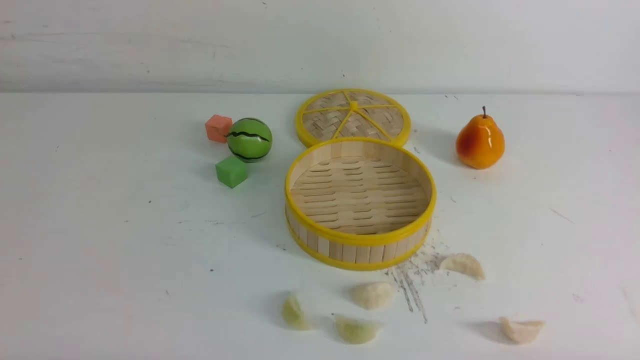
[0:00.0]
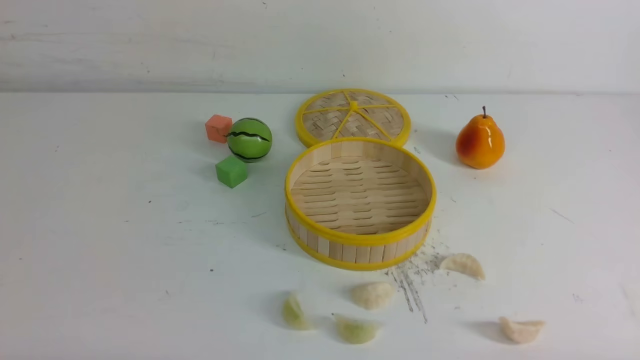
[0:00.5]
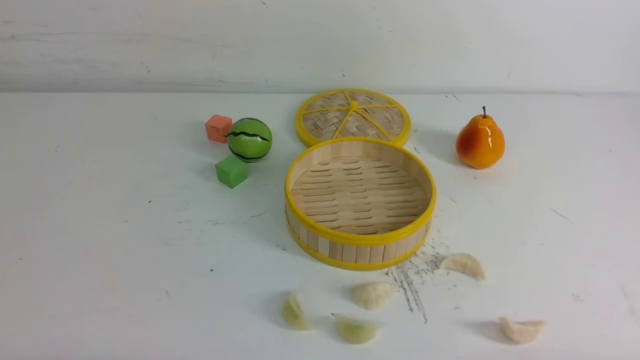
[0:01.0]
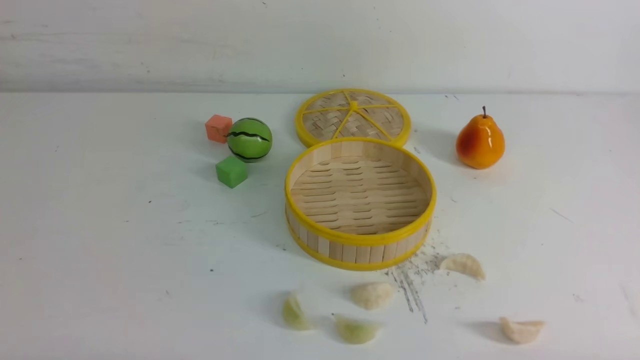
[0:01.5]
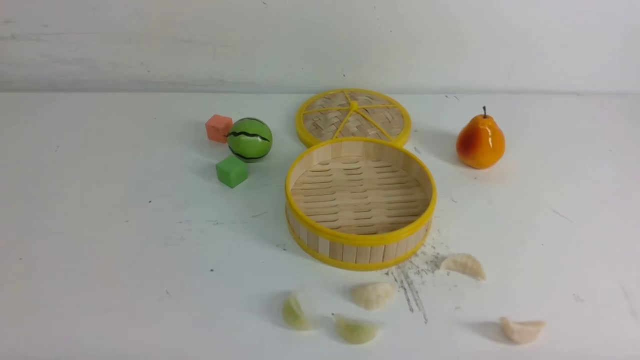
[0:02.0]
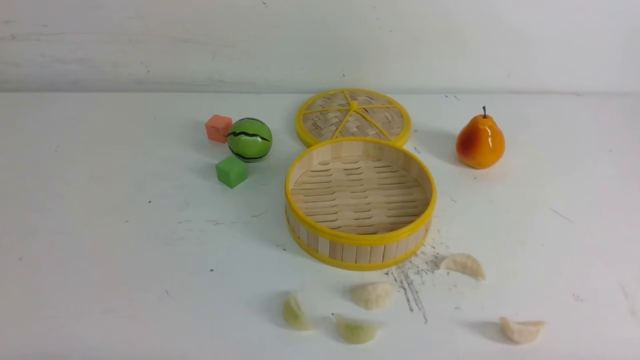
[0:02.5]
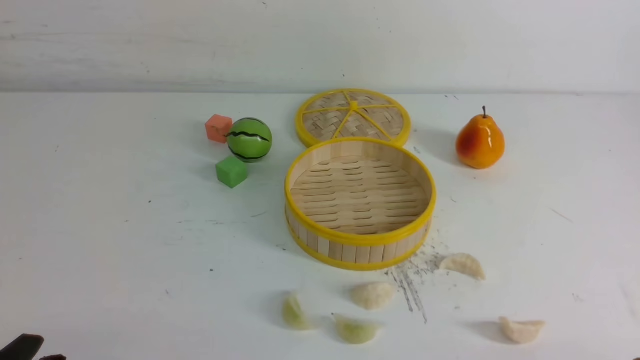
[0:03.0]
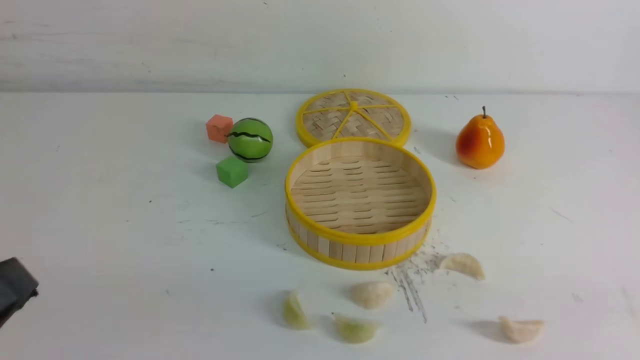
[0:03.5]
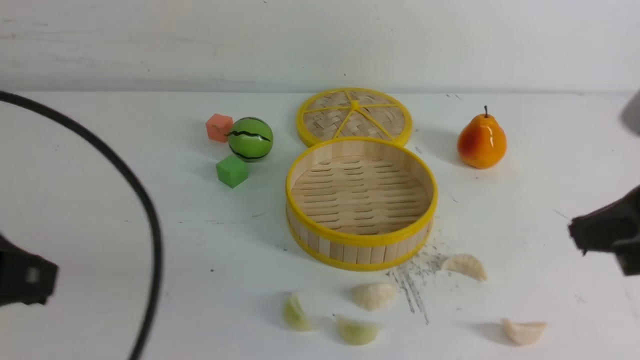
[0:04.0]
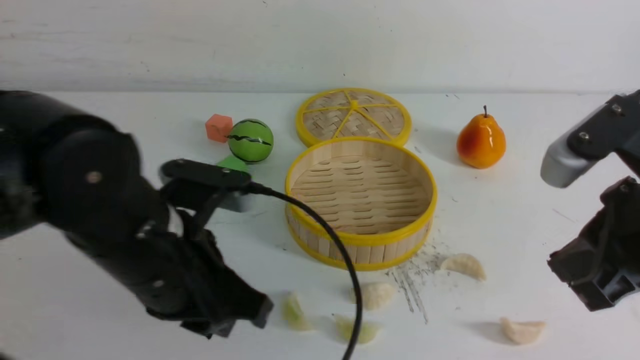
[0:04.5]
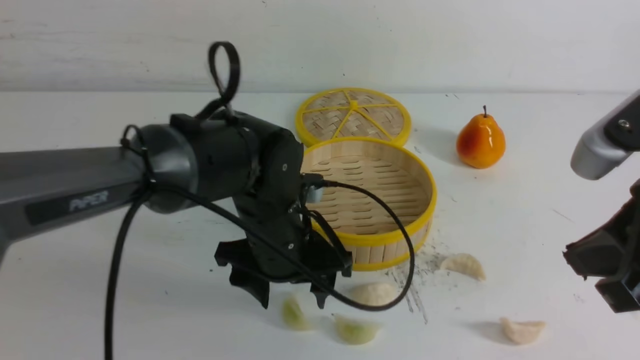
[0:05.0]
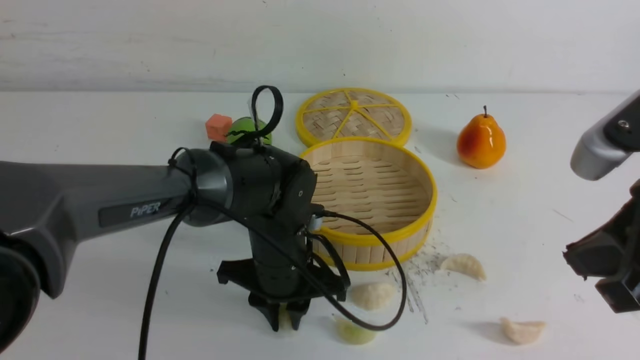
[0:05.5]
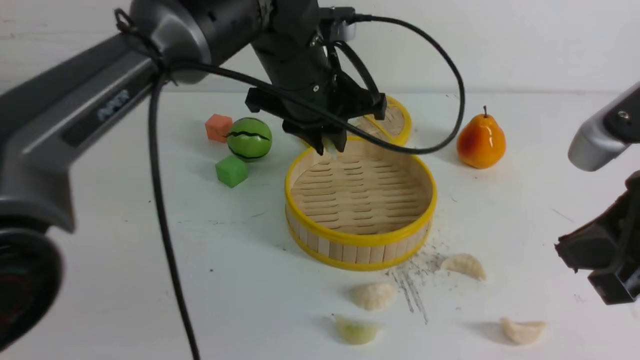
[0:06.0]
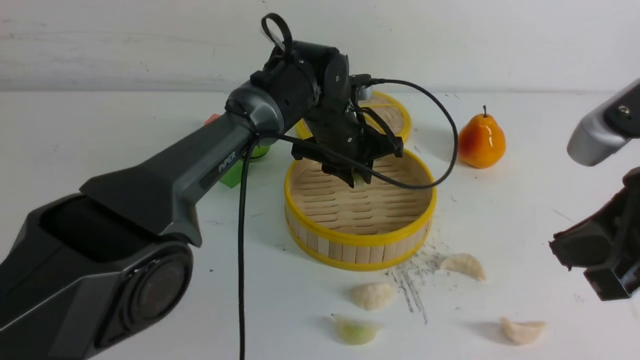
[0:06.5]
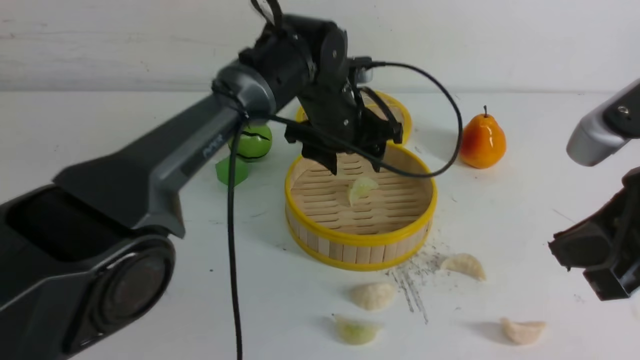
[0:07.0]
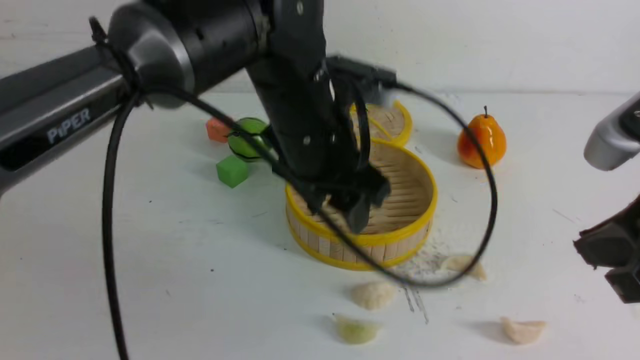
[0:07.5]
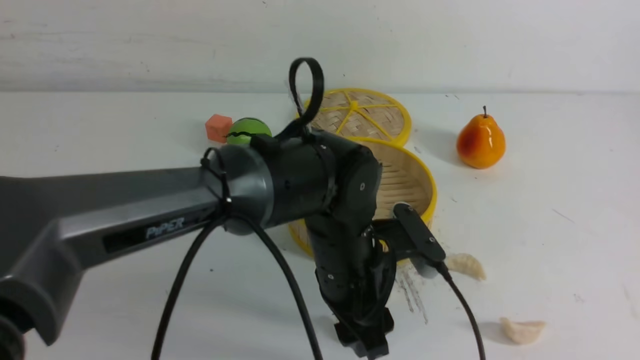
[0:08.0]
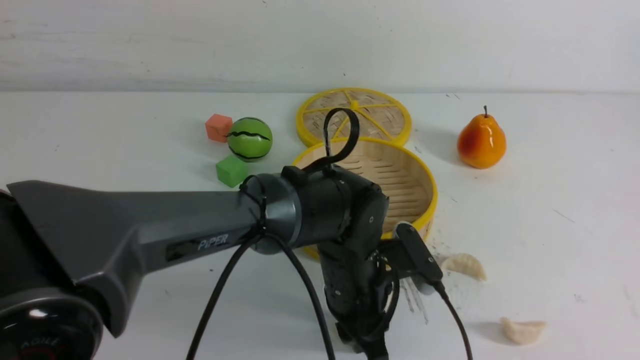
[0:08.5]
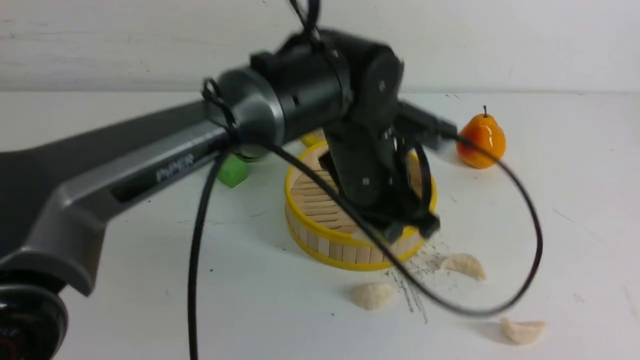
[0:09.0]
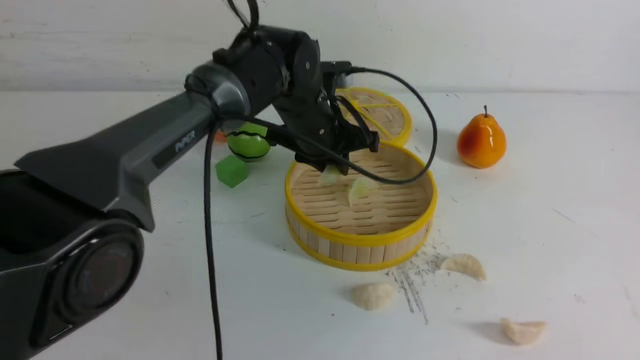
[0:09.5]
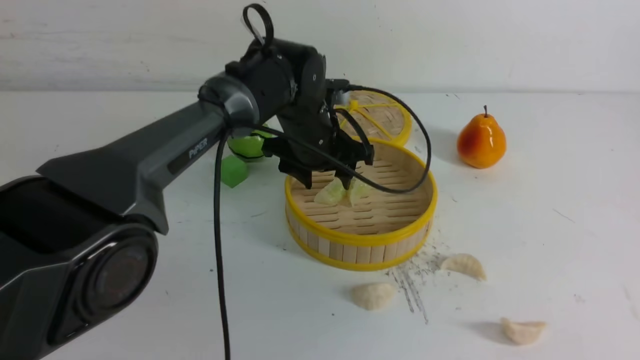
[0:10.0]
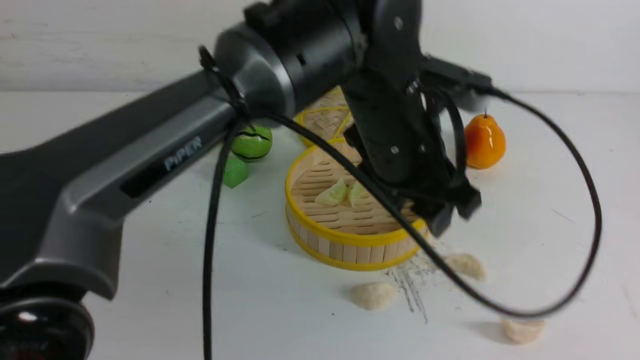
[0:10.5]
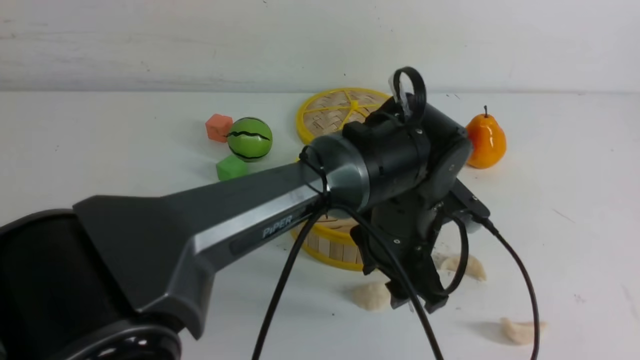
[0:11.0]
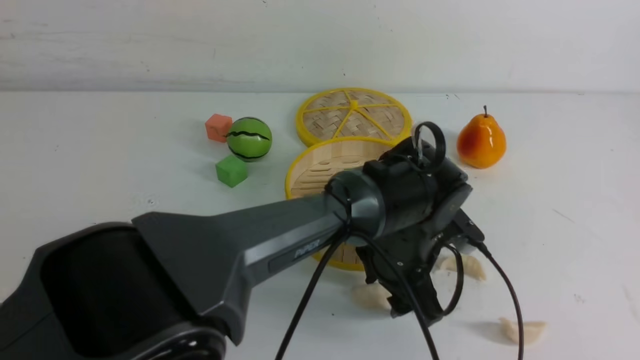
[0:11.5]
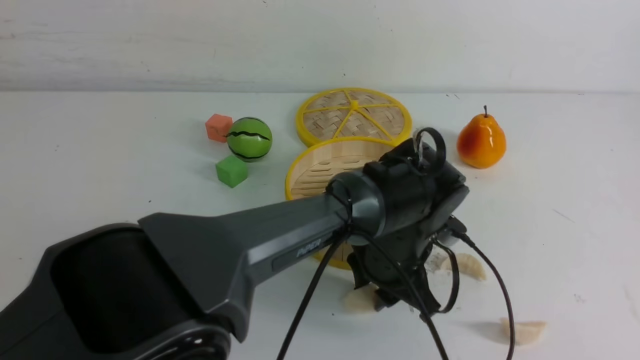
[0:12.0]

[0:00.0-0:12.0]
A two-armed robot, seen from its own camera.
Task of the whole recording: put the dumplings into the steamer on the white table.
Step, 0:00.0 to 0:05.5: use the left arm to grab a dumpling.
Step, 0:06.0 to 0:07.0: use the left arm to put the dumpling into the steamer.
Step, 0:07.5 to 0:08.5: use the left arm to grab a dumpling.
Step, 0:09.0 to 0:10.0: use the left arm to put the dumpling into the steamer.
0:00.0 to 0:02.0: The two grippers keep their place.
0:02.0 to 0:04.0: The grippers both shift upward and forward by some 20 cm. The left gripper closes, while the right gripper closes.
0:04.0 to 0:06.0: The left gripper is displaced forward and to the right by about 35 cm, and opens.
0:06.0 to 0:08.0: The right gripper is displaced to the right by approximately 5 cm; the left gripper heads backward and downward, covering some 15 cm, and opens its fingers.
0:08.0 to 0:10.0: The left gripper travels forward by about 15 cm, and closes, then opens again.
0:10.0 to 0:12.0: The left gripper moves backward, to the right and downward, approximately 15 cm.

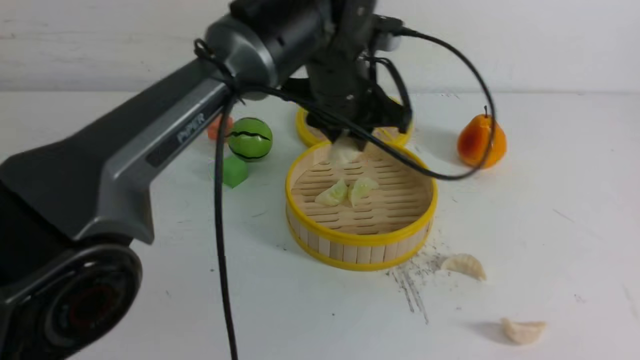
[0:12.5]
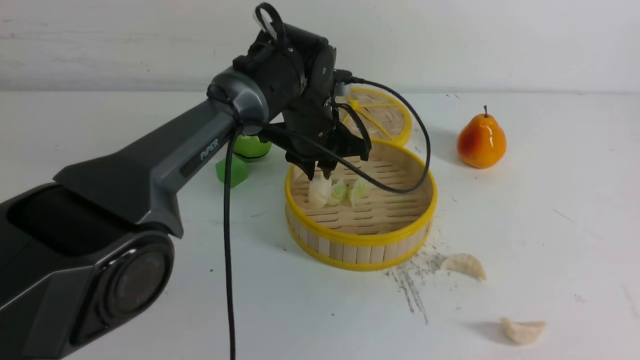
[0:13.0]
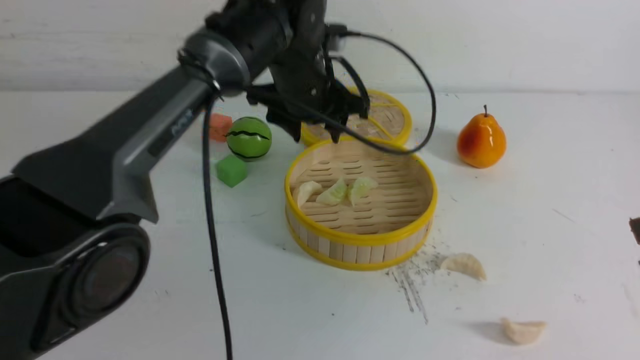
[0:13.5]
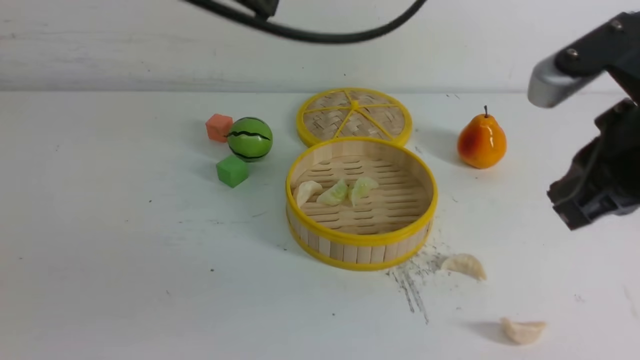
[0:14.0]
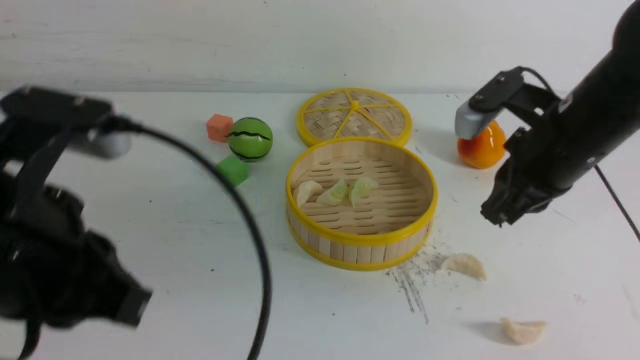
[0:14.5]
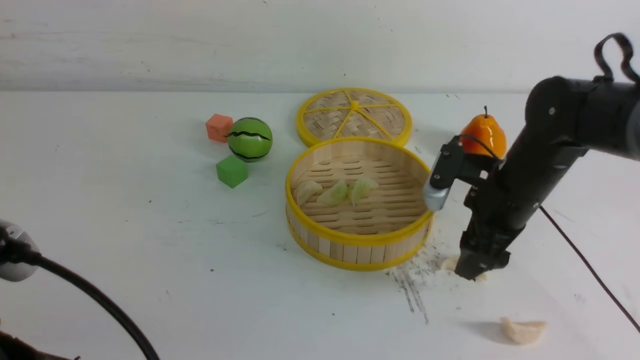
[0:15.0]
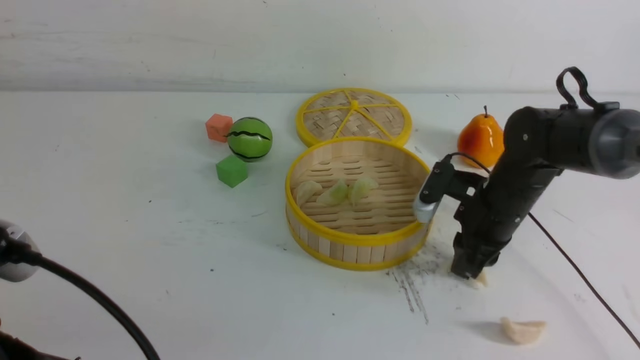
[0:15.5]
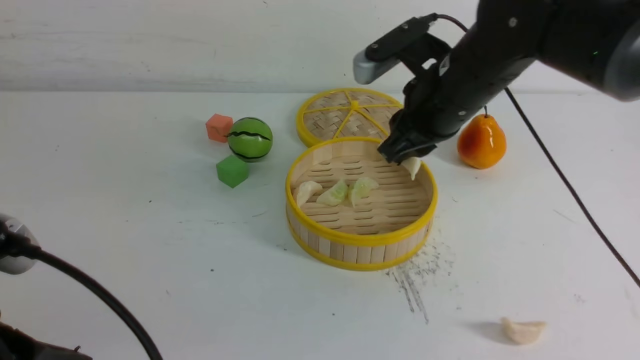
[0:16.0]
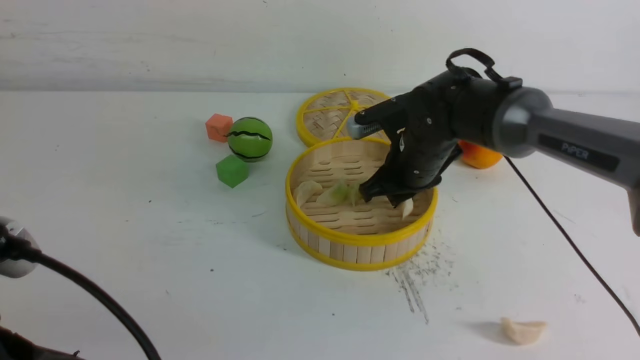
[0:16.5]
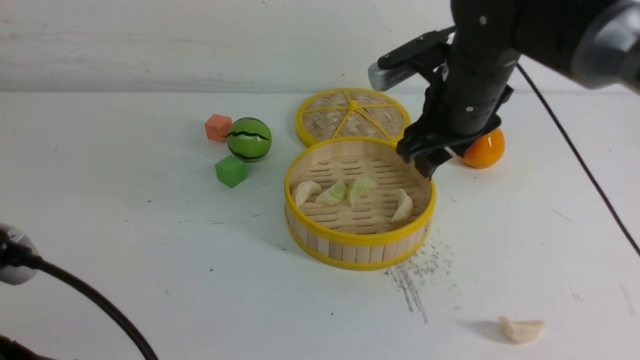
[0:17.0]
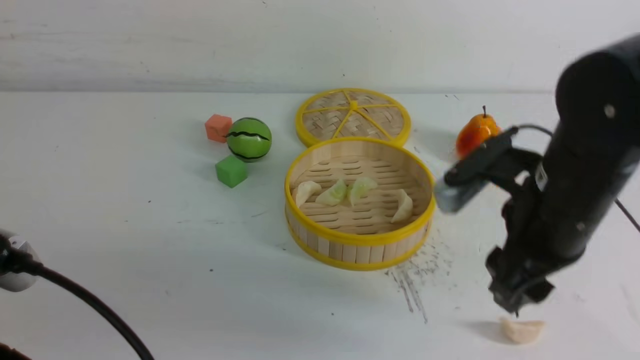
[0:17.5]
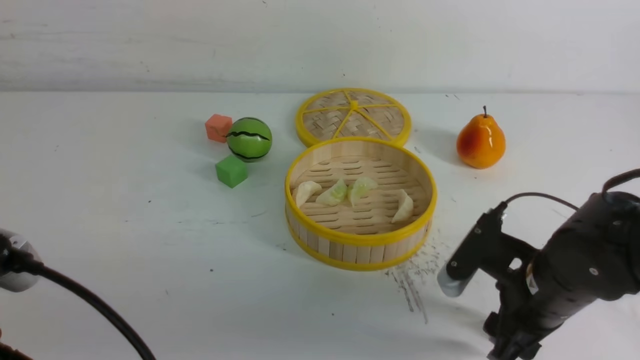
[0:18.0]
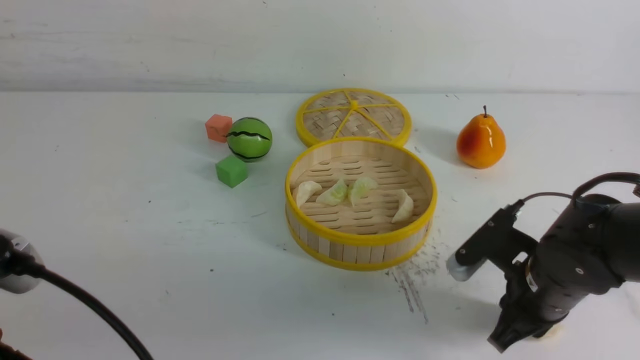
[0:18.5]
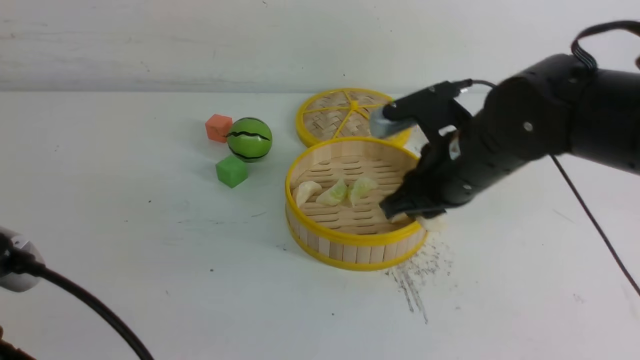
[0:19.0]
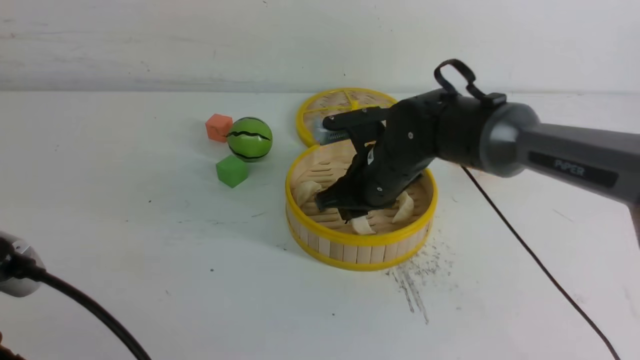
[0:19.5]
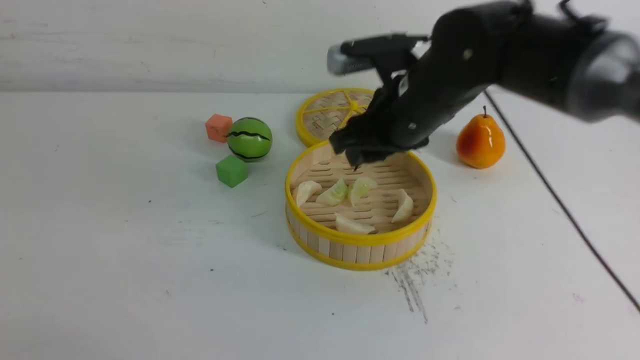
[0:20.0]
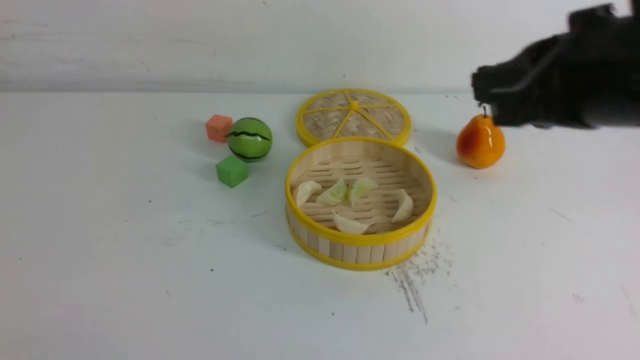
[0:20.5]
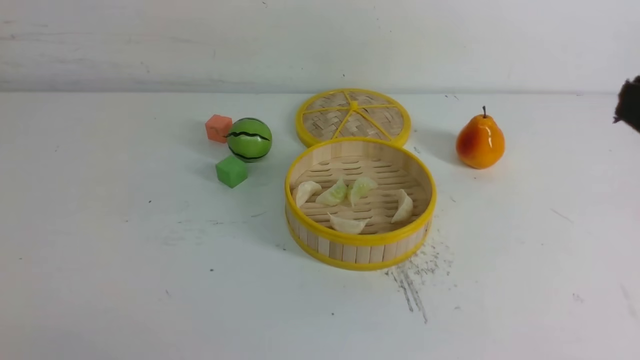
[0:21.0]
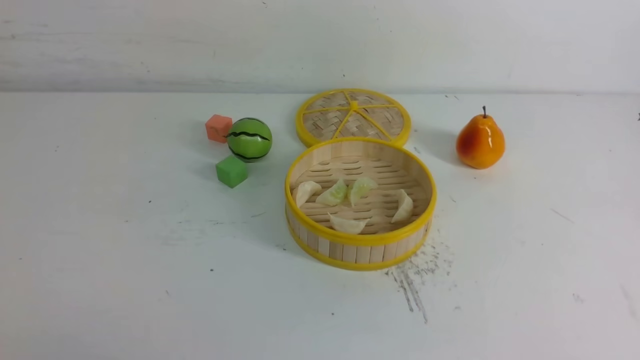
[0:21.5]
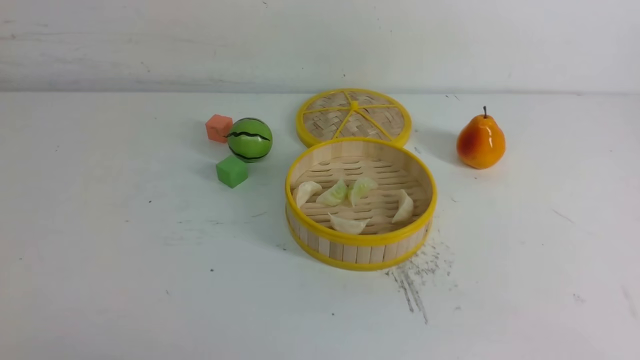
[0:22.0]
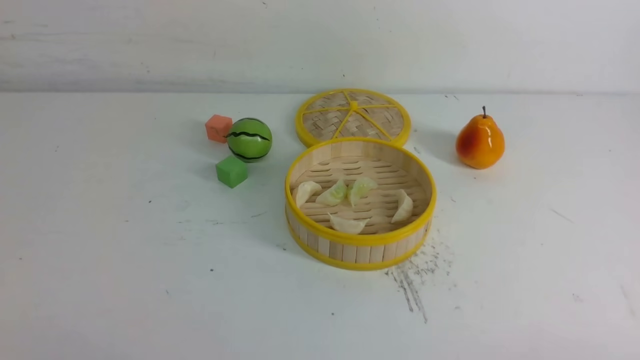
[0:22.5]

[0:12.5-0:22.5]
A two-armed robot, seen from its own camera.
Task of the whole recording: put the dumplings into the steamer on the white table.
Step, 0:12.5 to 0:13.5: use the left arm to put the dumpling into the steamer.
Step, 0:14.0 to 0:15.5: use the right arm to grab a dumpling.
Step, 0:16.0 to 0:16.5: use the right arm to put the dumpling into the steamer.
Step, 0:17.0 to 0:18.5: use the right arm to grab a dumpling.
Step, 0:19.0 to 0:19.5: use the right arm to put the dumpling into the steamer.
0:12.5 to 0:14.5: The right gripper travels forward by about 20 cm, while the left gripper moves backward and to the left, about 30 cm, and closes up.
0:14.5 to 0:16.5: The left gripper shifts some 5 cm backward; the right gripper goes up and down, approximately 10 cm each way, reversing 2 times, and opens its fingers.
0:16.5 to 0:18.5: The right gripper travels backward and to the right by some 15 cm, and opens, then closes once more.
0:18.5 to 0:20.5: The left gripper travels backward and to the left by approximately 10 cm; the right gripper goes up and down, some 25 cm each way, reversing 2 times, and closes up.
0:20.5 to 0:22.5: The right gripper travels downward, backward and to the right by roughly 30 cm.
